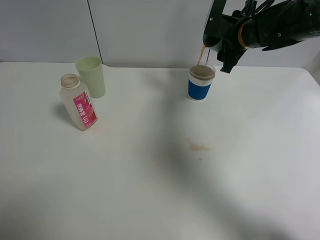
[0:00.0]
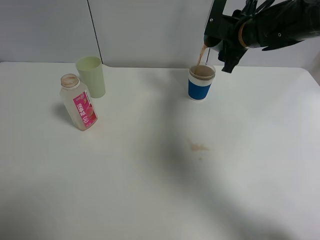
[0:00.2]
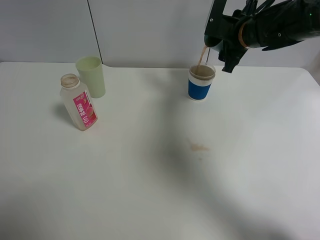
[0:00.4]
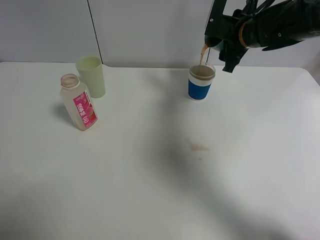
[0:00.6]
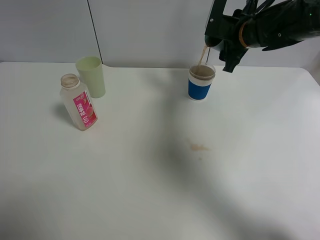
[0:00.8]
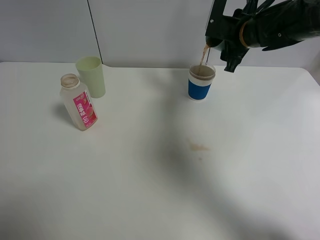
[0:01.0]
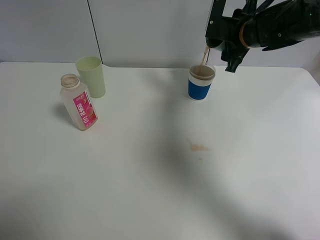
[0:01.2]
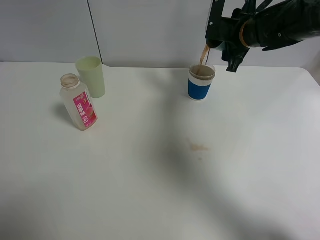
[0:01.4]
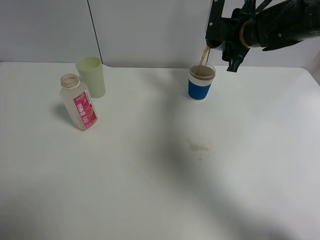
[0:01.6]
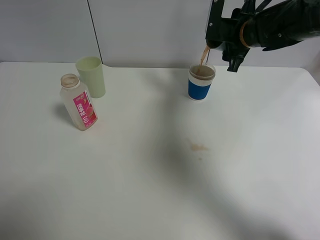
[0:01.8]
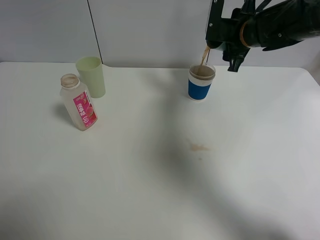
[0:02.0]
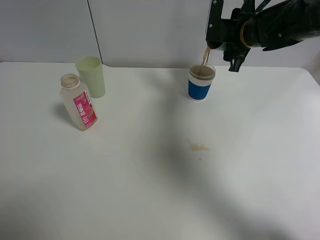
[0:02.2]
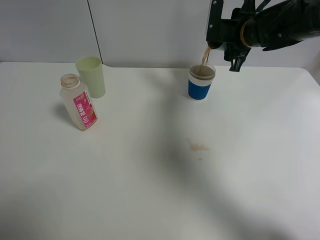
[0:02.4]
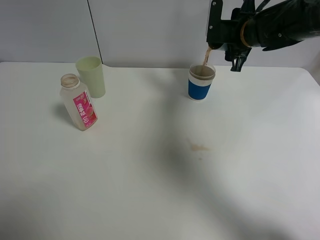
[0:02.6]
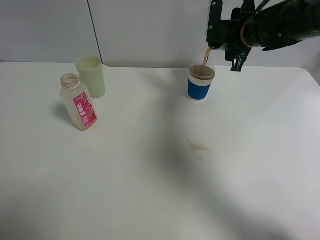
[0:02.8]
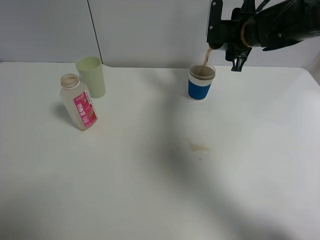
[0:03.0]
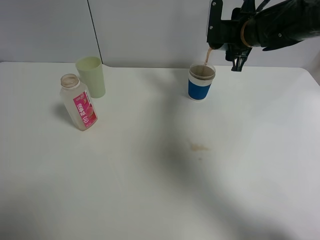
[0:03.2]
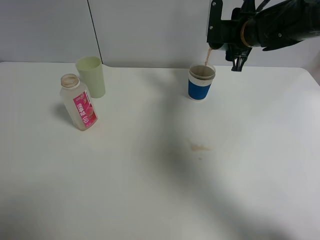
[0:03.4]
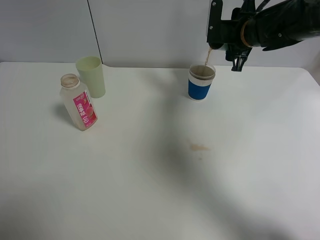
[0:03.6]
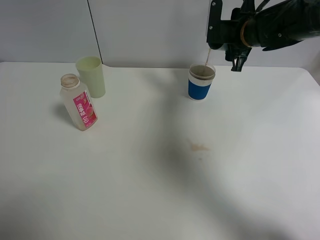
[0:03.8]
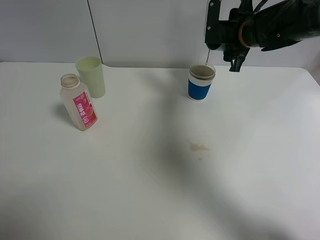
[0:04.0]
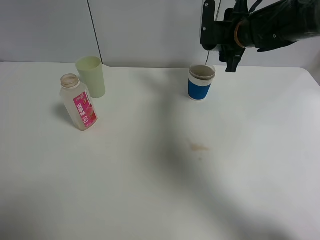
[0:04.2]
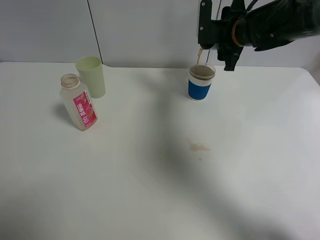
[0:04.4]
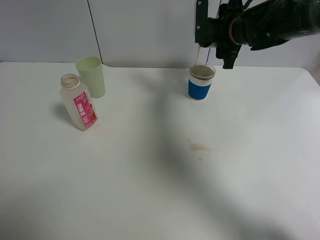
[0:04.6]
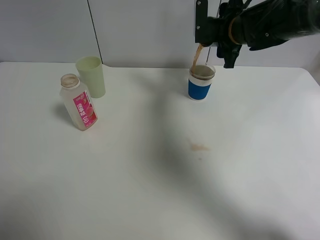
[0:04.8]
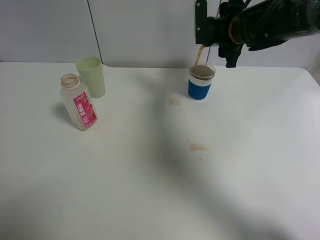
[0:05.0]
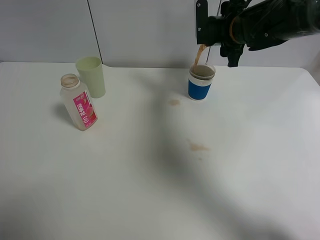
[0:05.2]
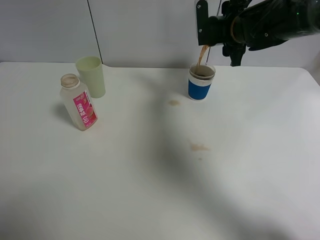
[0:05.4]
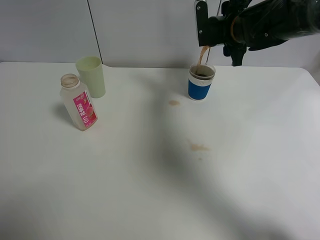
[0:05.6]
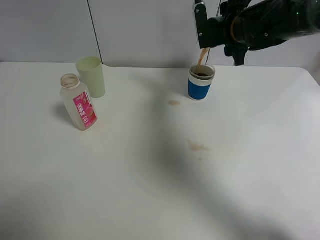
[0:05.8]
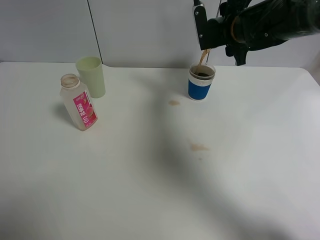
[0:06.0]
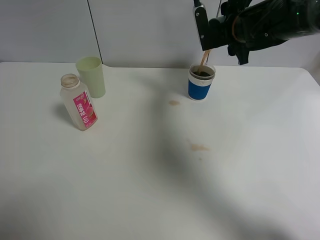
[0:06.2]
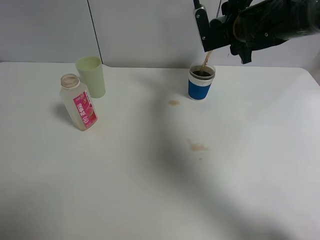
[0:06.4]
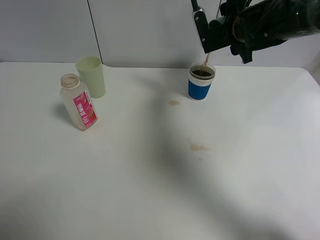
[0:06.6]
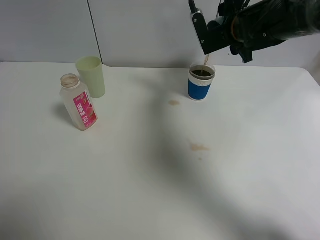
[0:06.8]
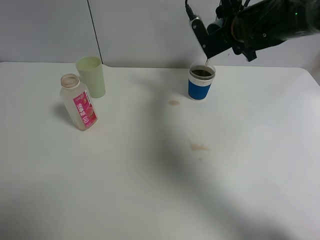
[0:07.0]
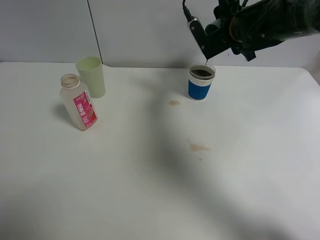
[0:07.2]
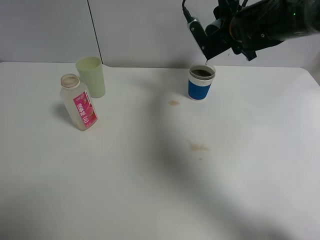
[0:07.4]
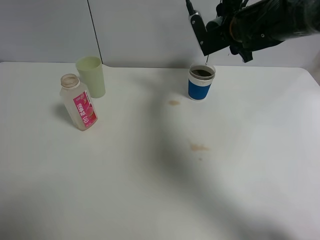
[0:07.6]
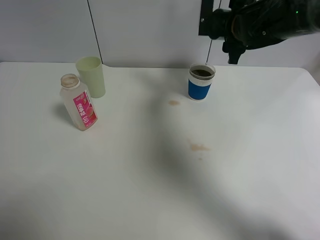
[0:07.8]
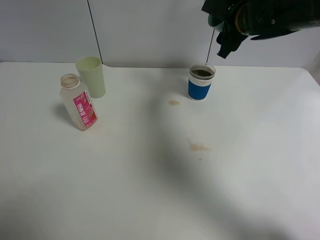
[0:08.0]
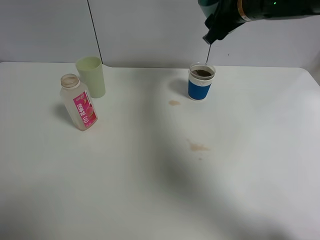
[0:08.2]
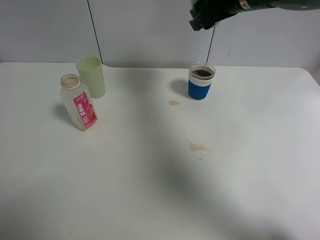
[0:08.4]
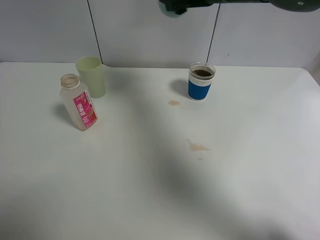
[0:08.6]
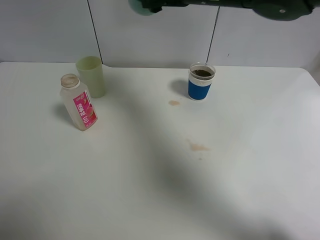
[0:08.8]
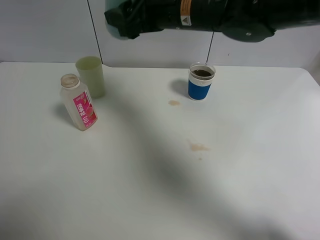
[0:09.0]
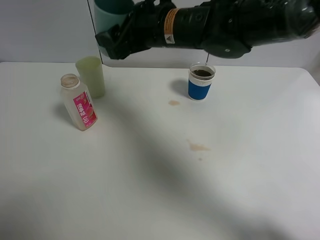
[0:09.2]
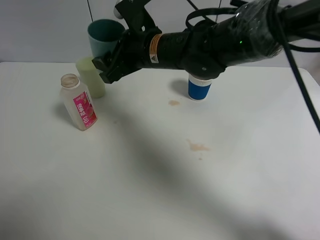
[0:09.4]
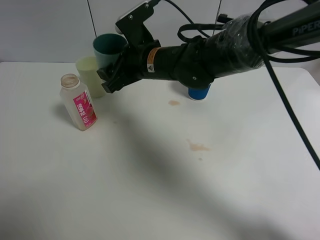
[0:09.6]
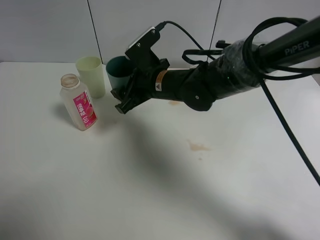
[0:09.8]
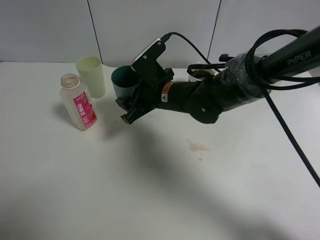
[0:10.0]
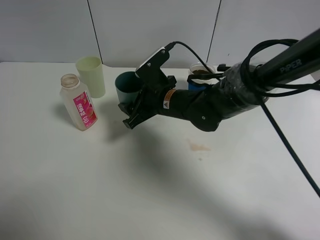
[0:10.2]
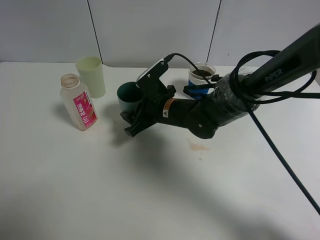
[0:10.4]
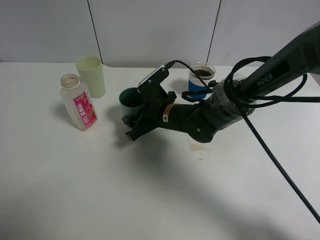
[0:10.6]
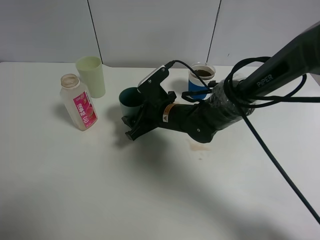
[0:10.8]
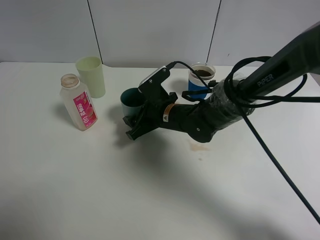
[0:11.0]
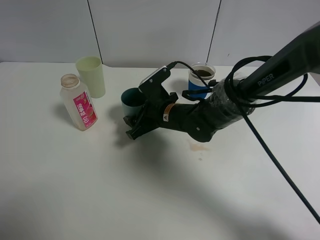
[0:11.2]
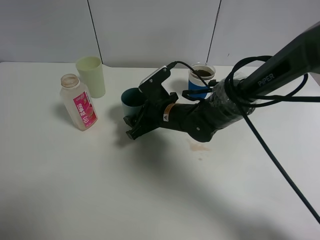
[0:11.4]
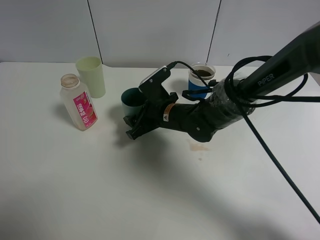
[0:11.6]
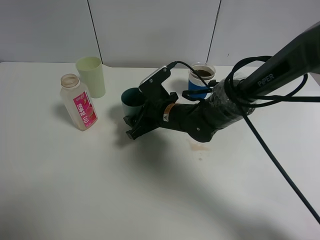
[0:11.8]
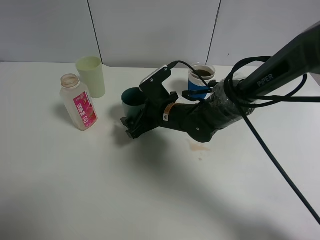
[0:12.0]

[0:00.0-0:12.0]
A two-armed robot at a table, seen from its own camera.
Task of the whole recording: use a clamp to hold the bottle of the drink, pour the beverage into a random cup, then clamp the cup containing the drink and pour the drink into another random cup.
Step, 0:00.0 to 0:07.8: Pour the drink into the paper cup with right gripper.
0:00.0 to 0:01.6: The grippers move only a little.
0:03.0 to 0:06.0: The grippers stay close to where they were, moving slightly.
0:06.0 to 0:07.6: The grippers make only small movements.
0:07.6 to 0:09.0: The right gripper shifts about 15 cm to the left and backward.
0:09.0 to 0:10.4: The right gripper moves downward, about 20 cm.
0:10.4 to 0:12.0: The right gripper opens.

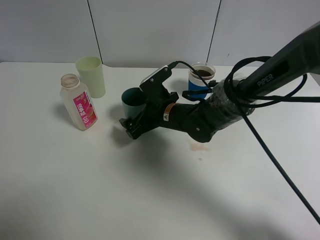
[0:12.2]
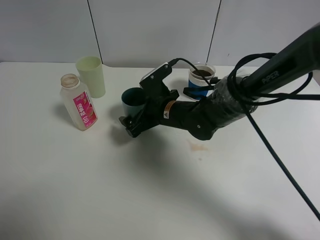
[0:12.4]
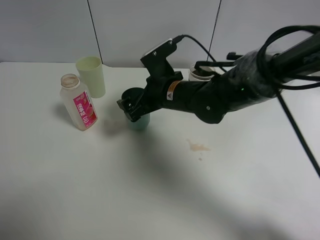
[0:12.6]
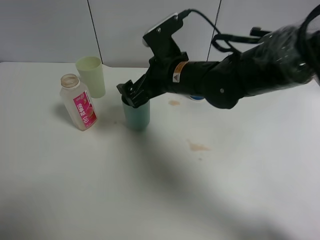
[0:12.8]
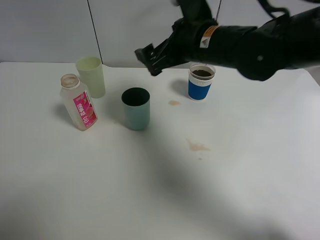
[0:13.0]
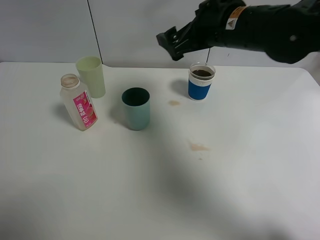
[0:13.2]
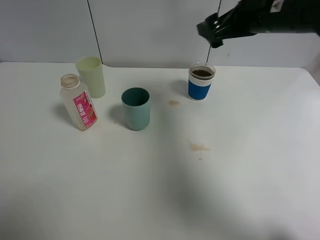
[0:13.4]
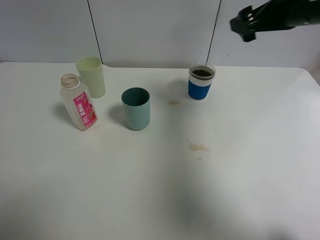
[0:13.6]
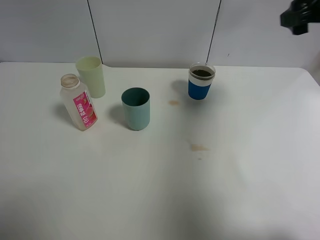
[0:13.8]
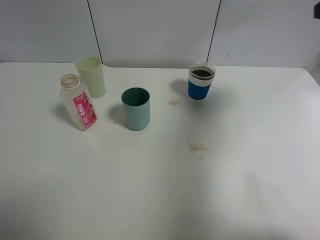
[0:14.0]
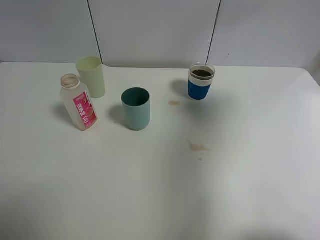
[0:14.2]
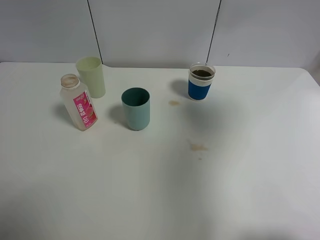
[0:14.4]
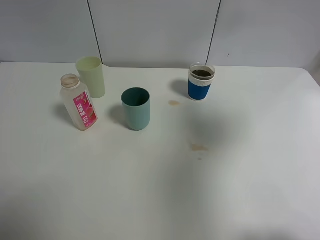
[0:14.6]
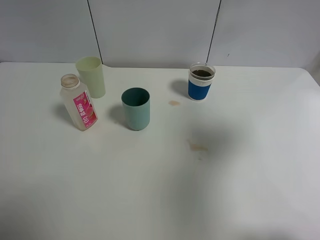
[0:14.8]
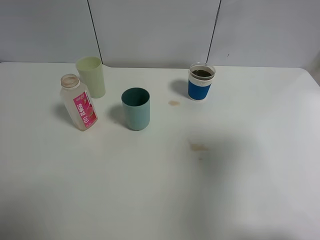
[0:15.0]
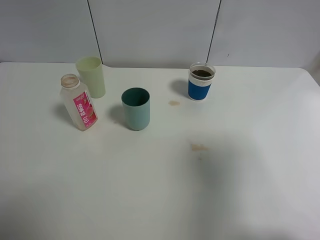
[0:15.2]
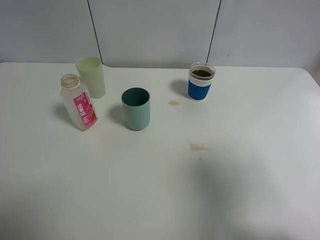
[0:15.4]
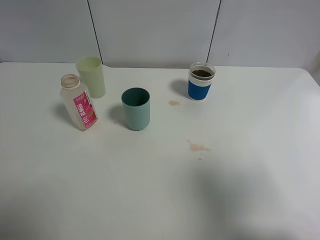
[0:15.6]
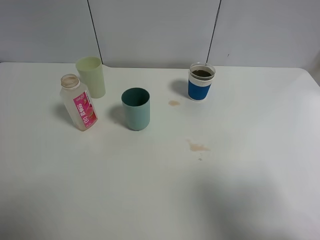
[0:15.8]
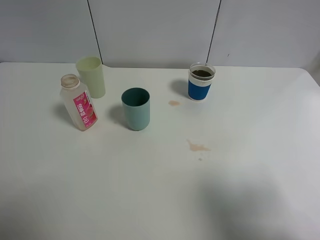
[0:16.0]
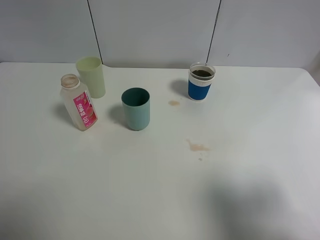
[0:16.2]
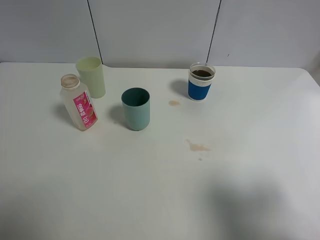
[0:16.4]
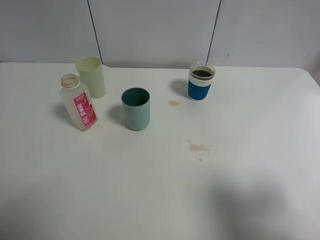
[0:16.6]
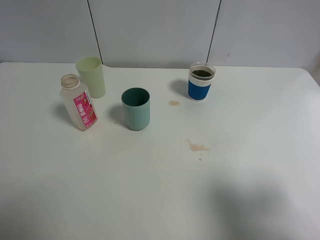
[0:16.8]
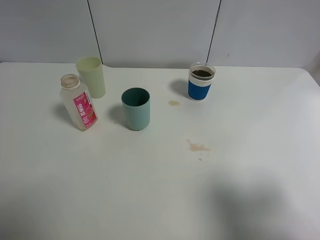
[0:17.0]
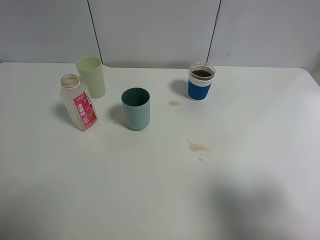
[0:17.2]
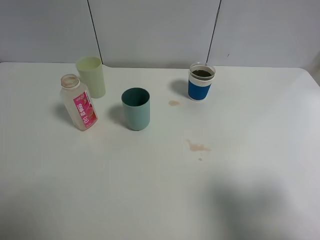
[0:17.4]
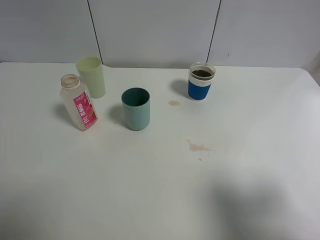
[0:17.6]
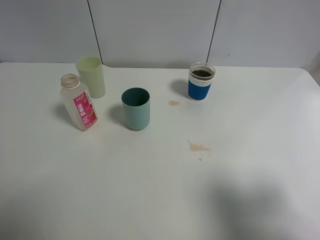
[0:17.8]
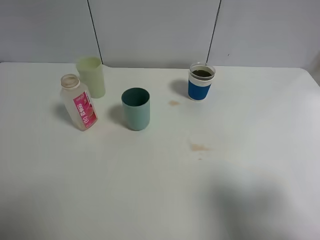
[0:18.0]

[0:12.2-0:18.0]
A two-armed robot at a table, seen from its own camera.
Task of the whole recording: use a clamp to hold the bottle of the drink, pour the beverage into a random cup, then clamp the cup containing the drink and pour the drink into another random cup.
0:12.2 to 0:13.6: The right gripper goes some 30 cm upward and to the right.
0:13.6 to 0:15.0: The right gripper moves backward, some 25 cm.
0:15.0 to 0:16.6: The right gripper moves backward and downward, approximately 10 cm.
0:16.6 to 0:18.0: Neither gripper changes place.

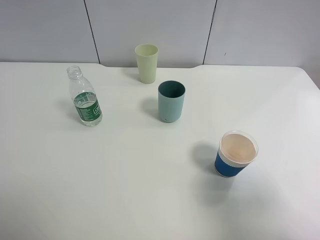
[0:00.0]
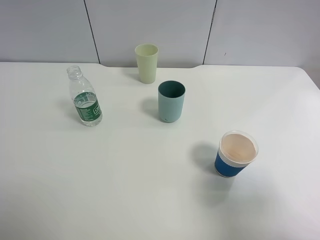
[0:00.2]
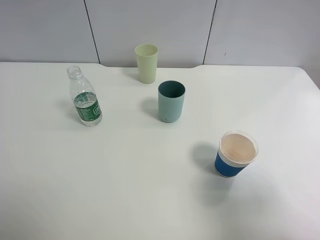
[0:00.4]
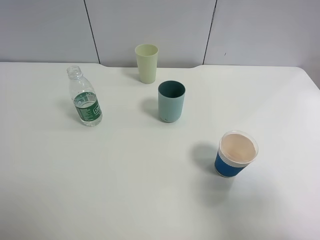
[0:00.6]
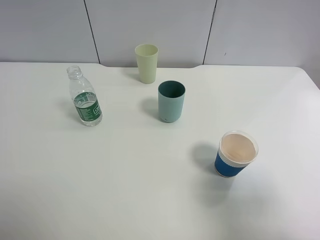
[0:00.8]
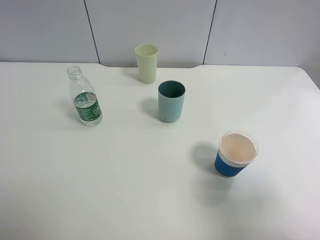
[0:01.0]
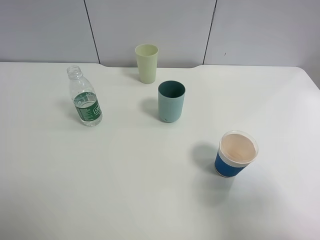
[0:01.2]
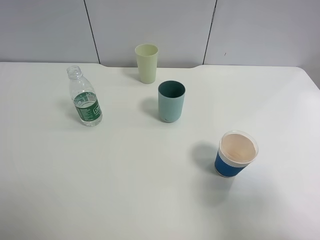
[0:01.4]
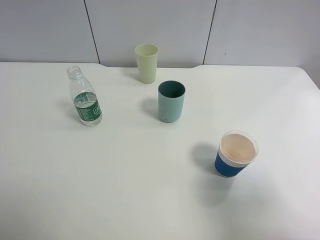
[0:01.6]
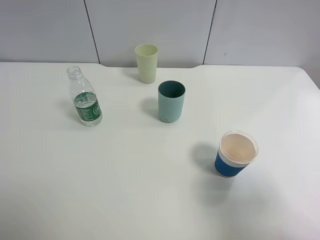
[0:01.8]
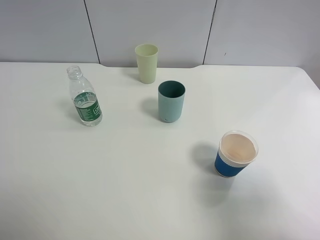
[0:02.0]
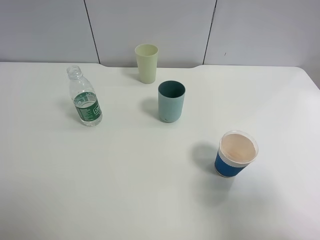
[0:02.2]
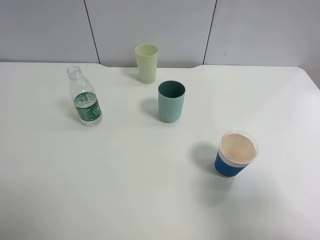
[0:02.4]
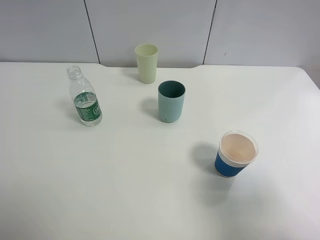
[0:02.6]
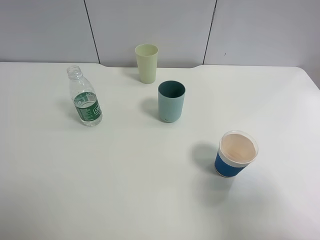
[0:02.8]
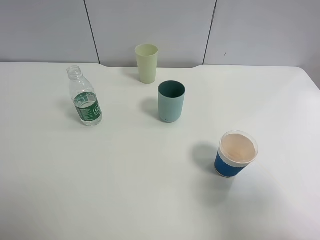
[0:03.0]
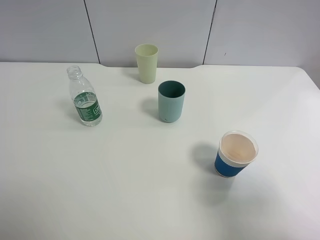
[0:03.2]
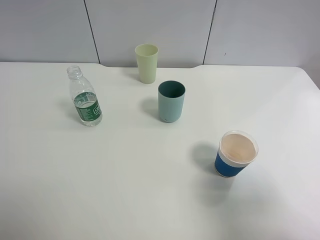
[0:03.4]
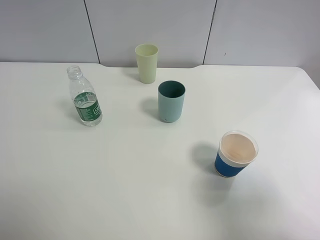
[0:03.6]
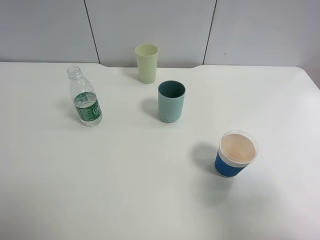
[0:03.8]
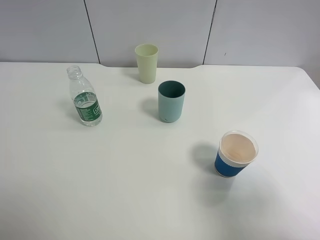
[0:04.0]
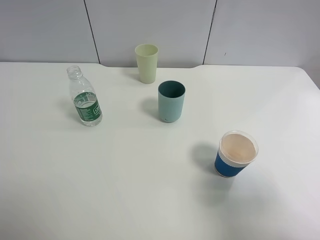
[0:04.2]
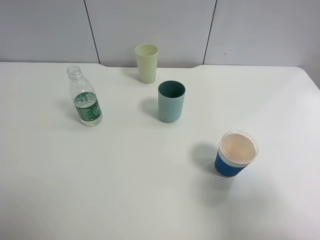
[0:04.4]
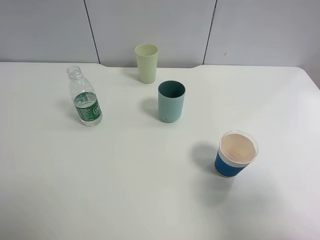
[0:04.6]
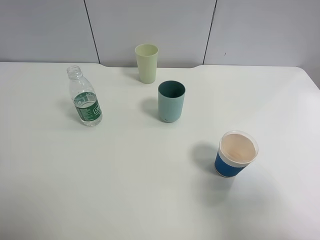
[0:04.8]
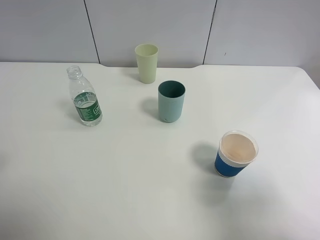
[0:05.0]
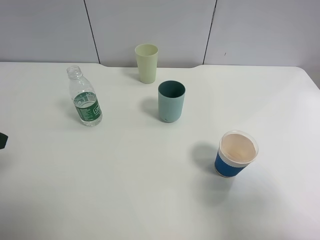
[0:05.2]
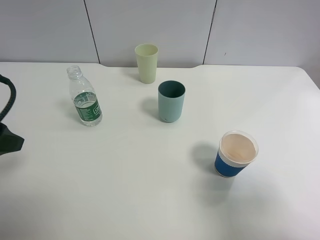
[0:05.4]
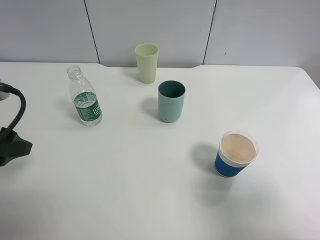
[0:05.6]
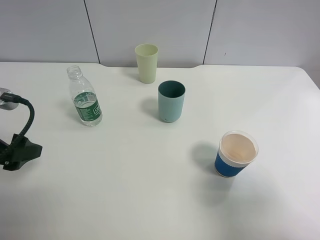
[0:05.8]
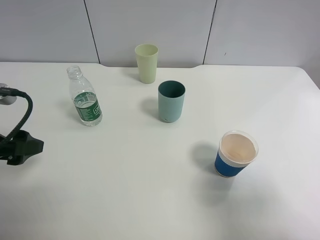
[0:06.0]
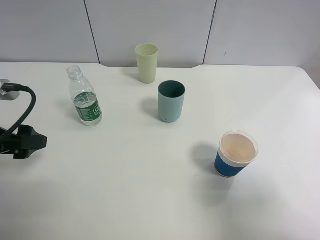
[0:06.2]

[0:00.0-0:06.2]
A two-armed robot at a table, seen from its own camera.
Task of the whole recording: use a clamp to hold the bottle of the drink, pour the beverage into a random cup, then clamp the cup containing the drink and pour the drink into another random cup.
0:00.0 to 0:03.2: The two grippers keep their place.
0:04.6 to 0:06.2: The left gripper moves downward and forward, about 15 cm.
